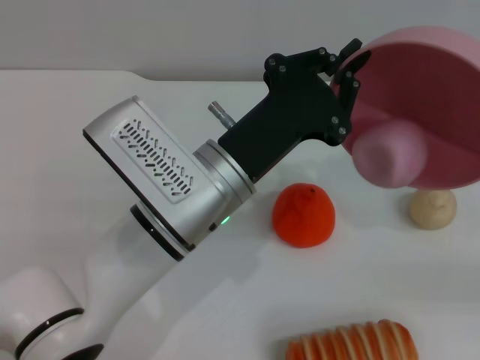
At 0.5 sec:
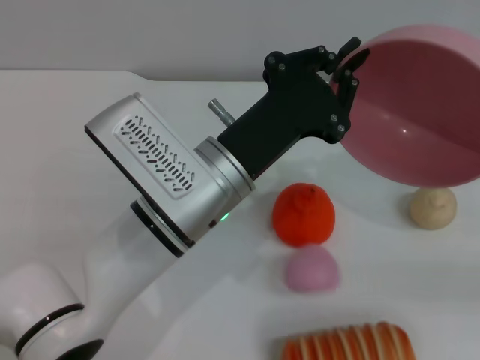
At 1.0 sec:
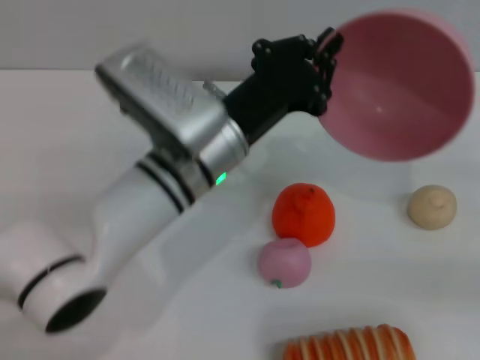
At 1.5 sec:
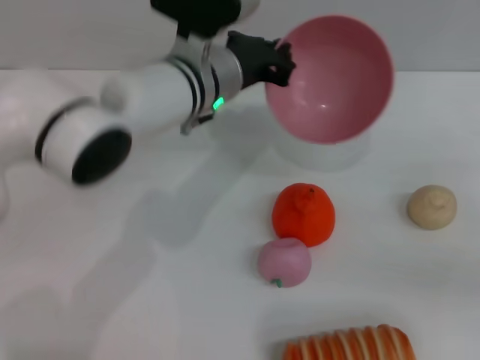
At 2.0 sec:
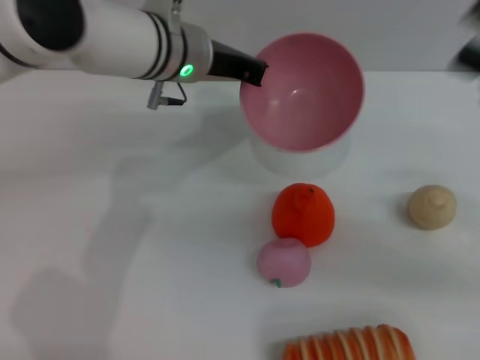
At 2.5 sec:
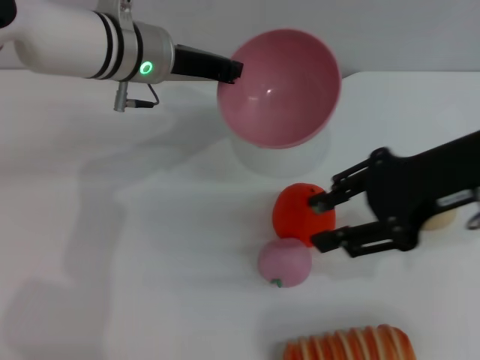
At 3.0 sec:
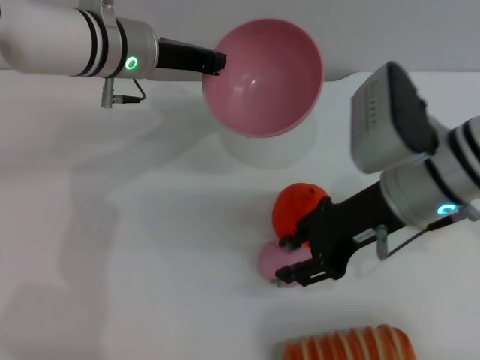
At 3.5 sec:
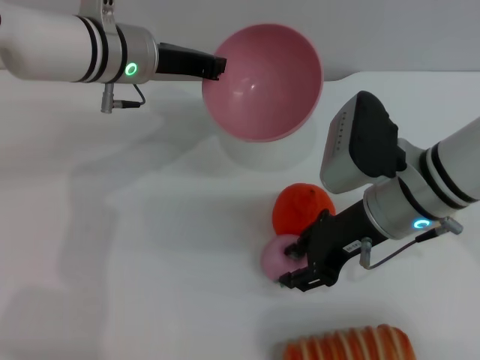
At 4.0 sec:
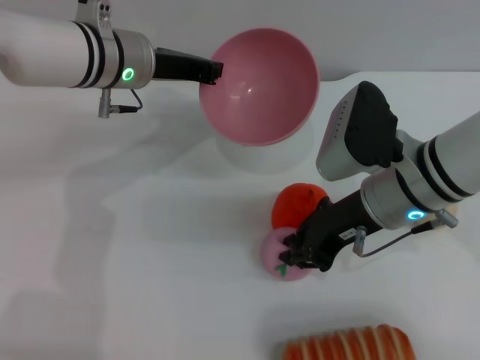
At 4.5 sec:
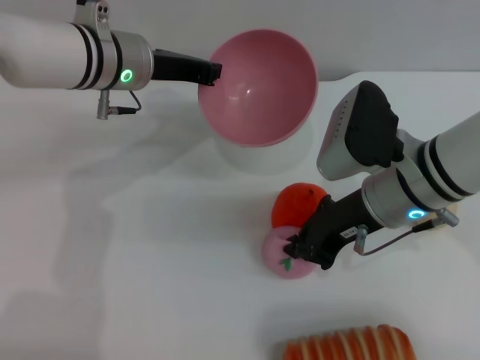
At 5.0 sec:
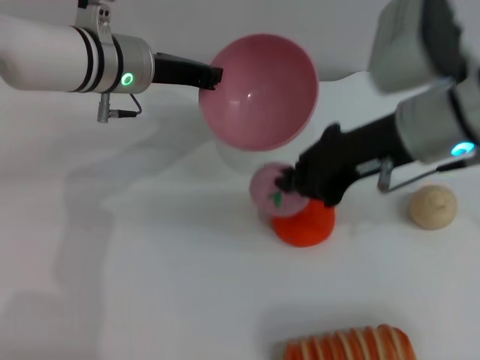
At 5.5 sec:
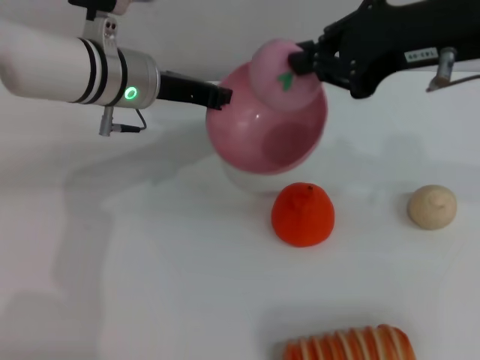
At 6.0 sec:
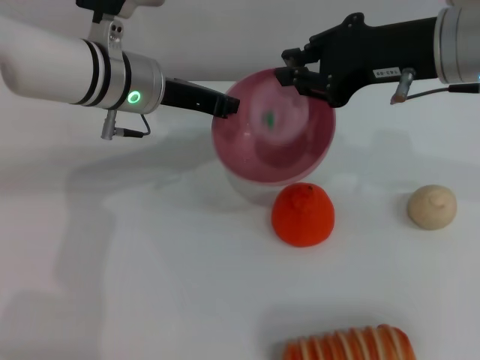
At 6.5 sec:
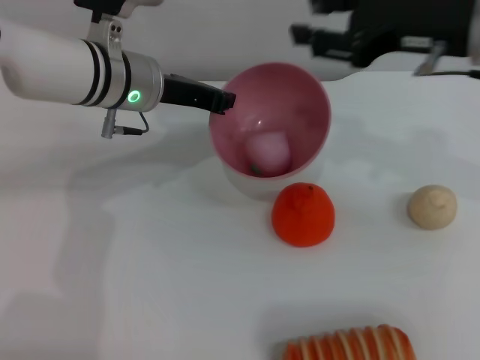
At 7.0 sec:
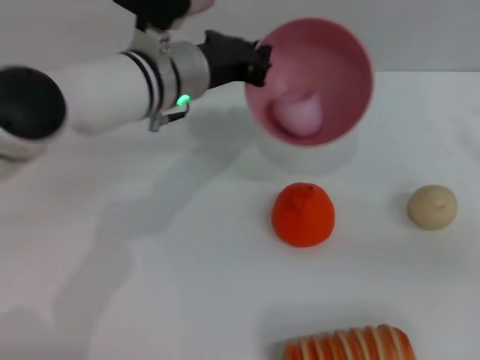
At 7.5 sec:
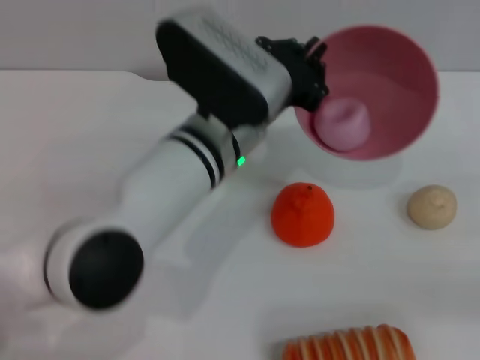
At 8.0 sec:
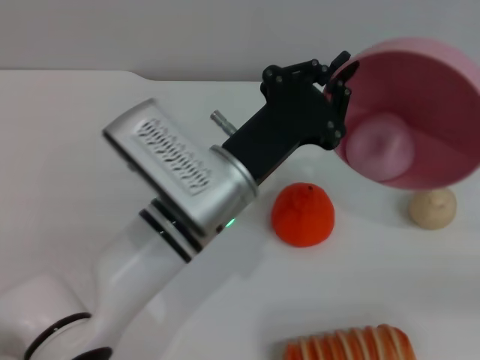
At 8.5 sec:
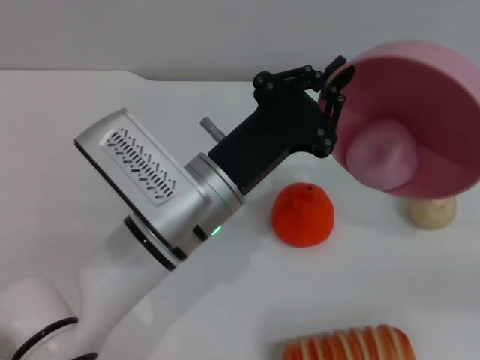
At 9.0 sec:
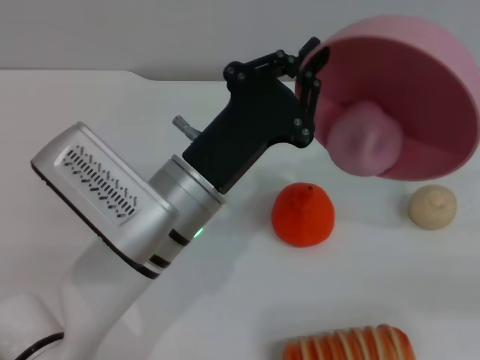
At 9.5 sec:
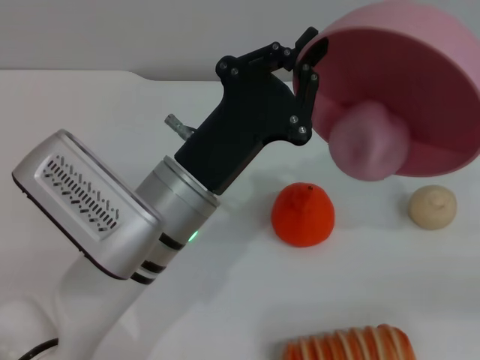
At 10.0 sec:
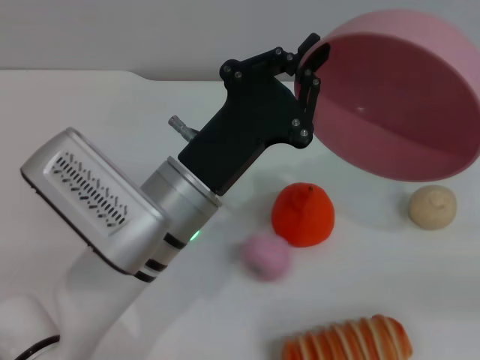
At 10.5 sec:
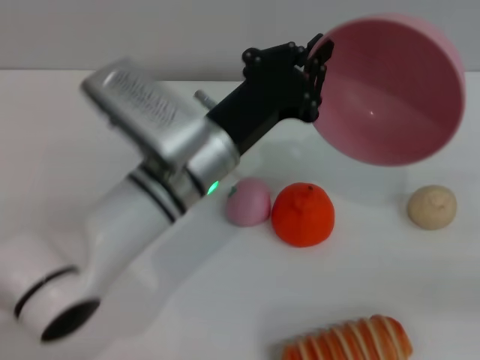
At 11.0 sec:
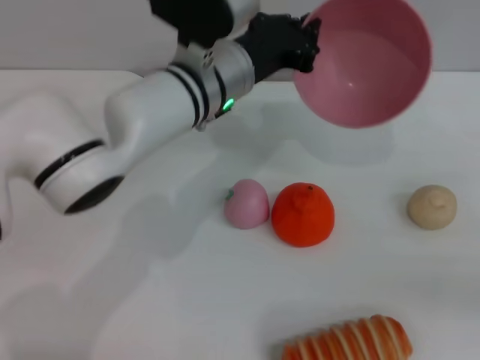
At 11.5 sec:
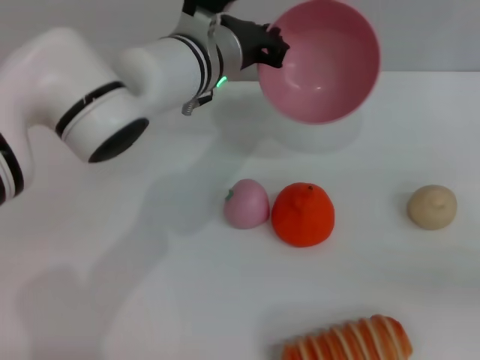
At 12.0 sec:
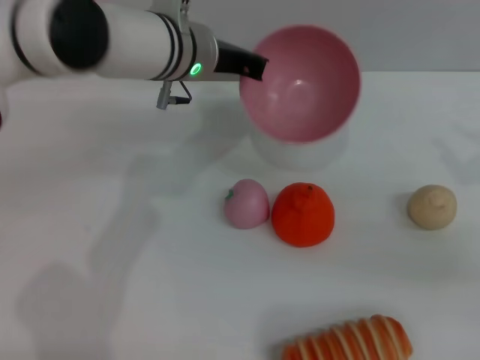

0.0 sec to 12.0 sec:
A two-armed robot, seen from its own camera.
Task of the whole recording: put the peach into the pink bowl and pour it out repeatedly.
Step, 1.0 sec to 5.0 sec: Pick up the peach with the right gripper.
Step, 5.5 sec to 6.0 sec: Place the peach into the bowl.
Step, 6.5 sec to 10.0 sec: Pour the peach out of bowl.
0.0 sec to 2.0 sec: The right gripper is displaced to the left and upward by roughly 15 cm, while the left gripper moves forward, some 15 cm.
2.0 sec to 4.0 sec: The left gripper is displaced to the left by roughly 5 cm. The right gripper shifts approximately 20 cm to the left and downward.
4.0 sec to 6.0 sec: The right gripper heads upward, covering some 10 cm, and closes its fingers.
6.0 sec to 8.0 sec: The left gripper travels backward and to the right by approximately 15 cm, while the right gripper shifts approximately 25 cm to the right and backward, and opens its fingers.
10.0 sec to 12.0 sec: The left gripper travels forward by roughly 15 cm, while the right gripper is displaced to the left by some 5 cm.

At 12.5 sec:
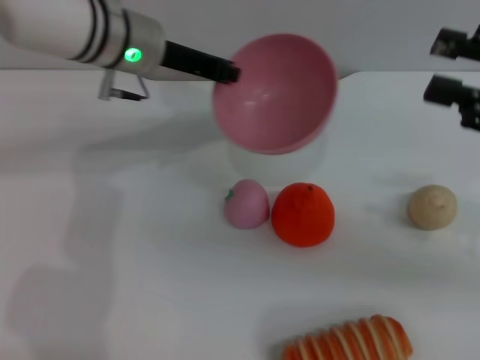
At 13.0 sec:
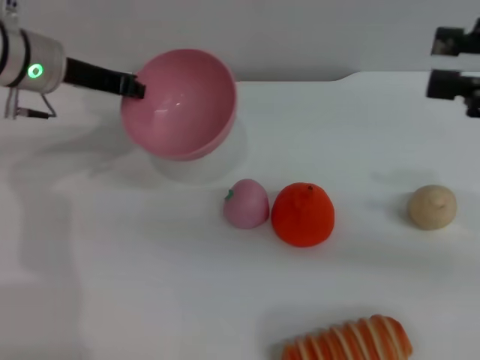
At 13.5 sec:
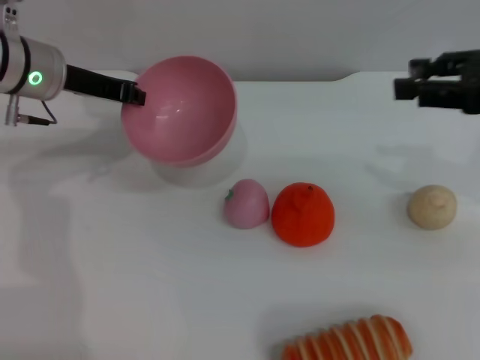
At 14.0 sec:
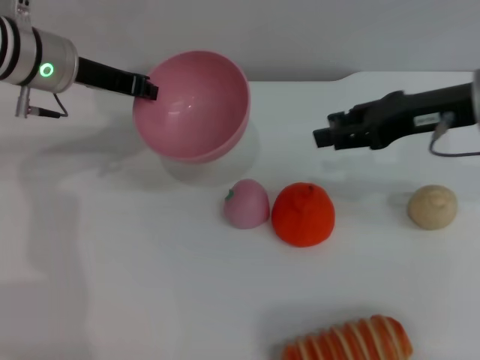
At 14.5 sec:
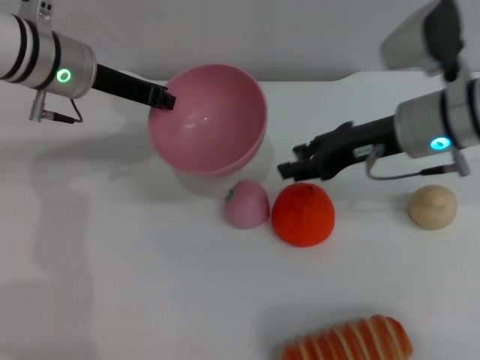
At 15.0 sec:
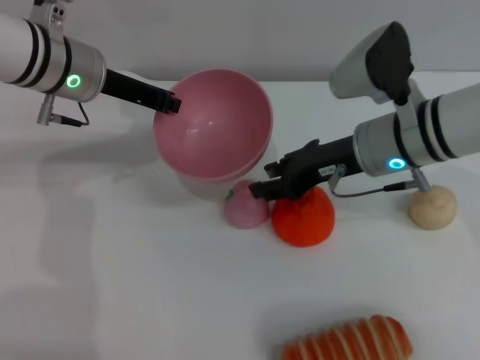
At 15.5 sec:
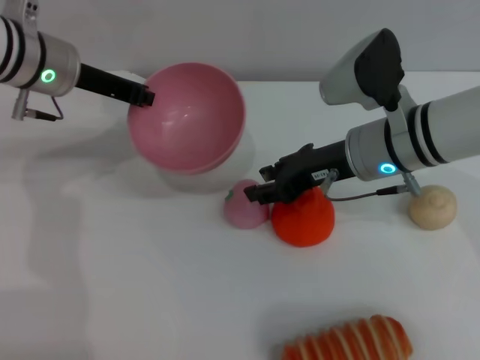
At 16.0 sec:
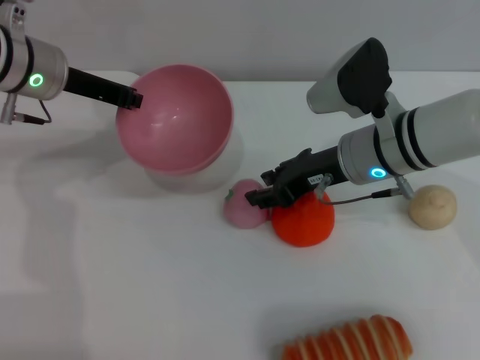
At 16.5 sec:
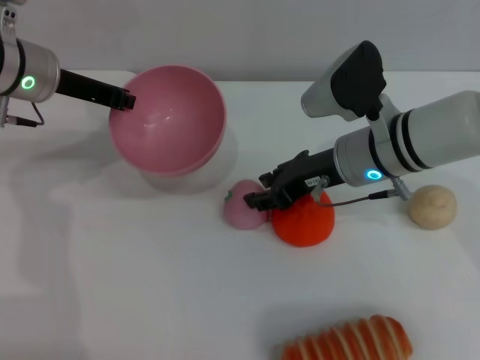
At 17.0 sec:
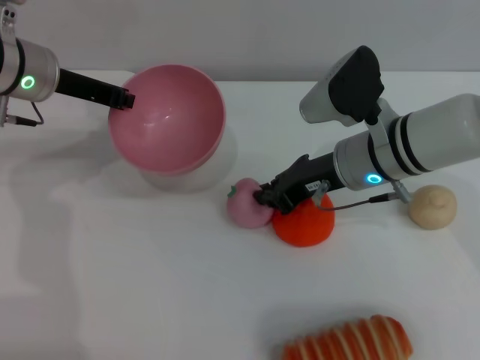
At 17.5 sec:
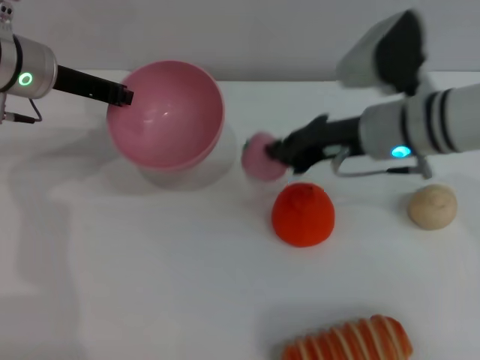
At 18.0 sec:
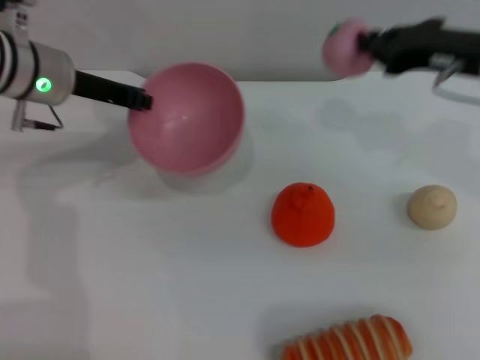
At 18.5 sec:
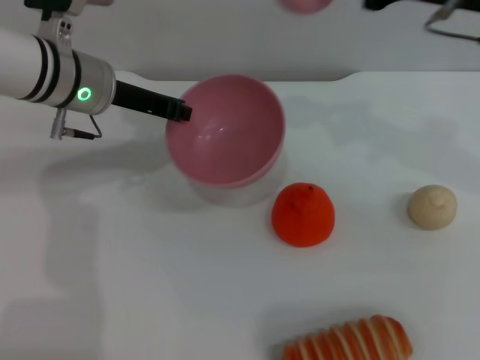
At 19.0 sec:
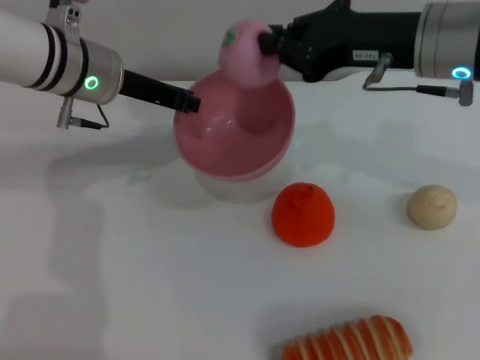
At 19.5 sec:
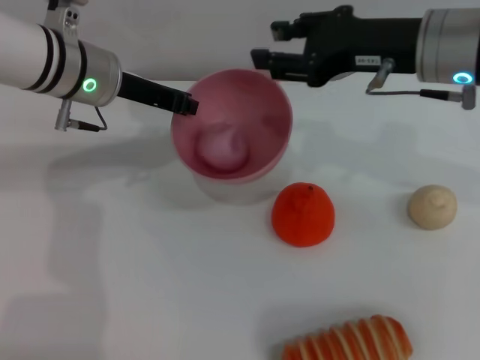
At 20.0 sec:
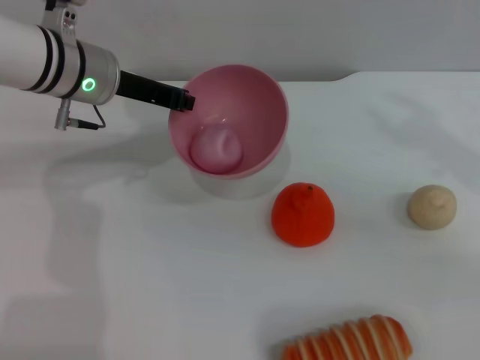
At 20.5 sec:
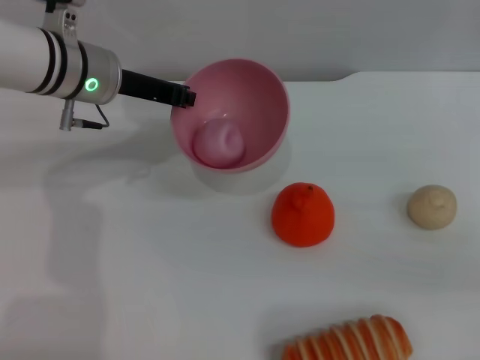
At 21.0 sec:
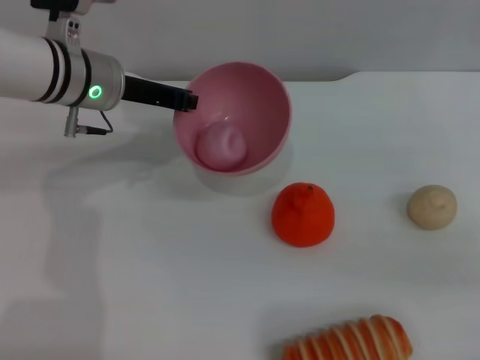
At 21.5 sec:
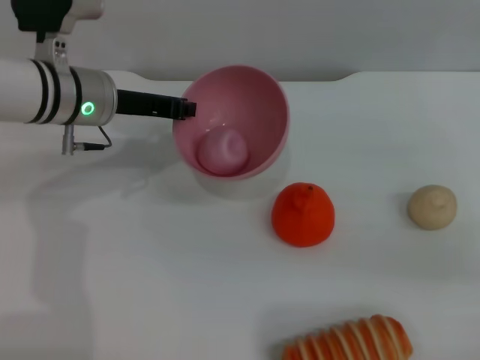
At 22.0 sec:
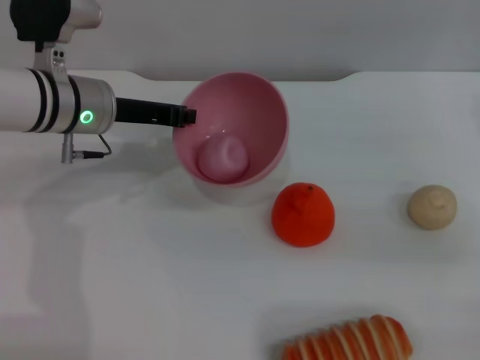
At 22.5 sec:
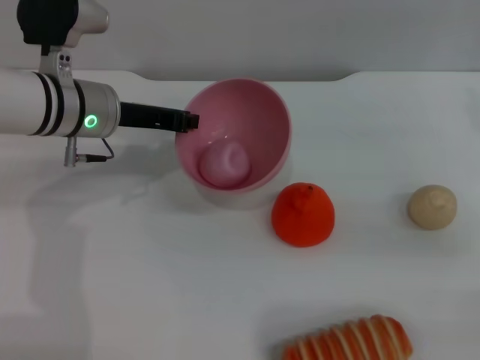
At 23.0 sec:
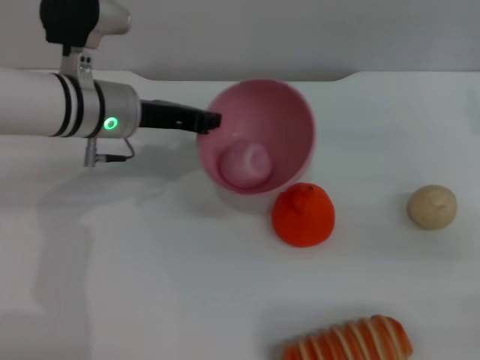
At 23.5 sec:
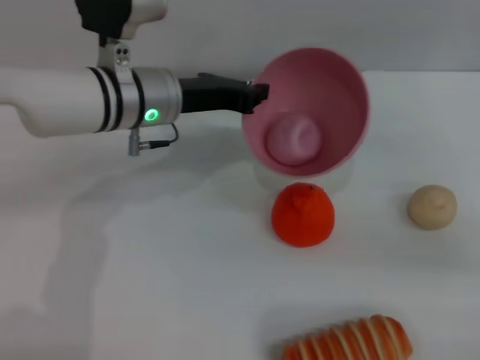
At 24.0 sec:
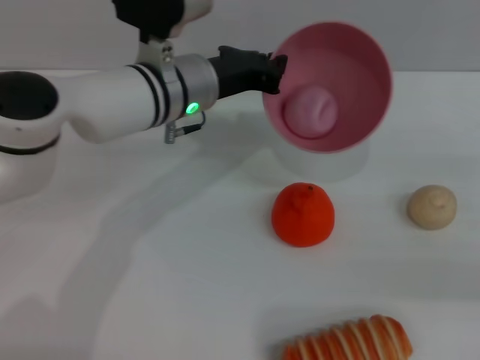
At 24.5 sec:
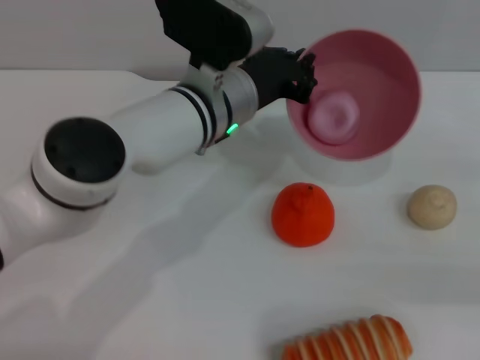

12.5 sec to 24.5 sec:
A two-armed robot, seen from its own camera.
Task of the whole recording: put the peach into the pink bowl and pour it out repeatedly.
Step, 12.5 sec to 17.5 sec: Pick up the peach with the right gripper.
Step, 18.0 sec to 19.0 sec: Place the peach into the bowl.
12.5 sec to 14.5 sec: The left gripper shifts some 5 cm to the left, while the right gripper goes approximately 20 cm to the left, forward and downward.
14.5 sec to 16.5 sec: The right gripper heads to the left, covering about 5 cm.
16.5 sec to 18.5 sec: The left gripper heads to the right, covering approximately 5 cm. The right gripper moves upward and to the right, approximately 20 cm, and closes up.
18.5 sec to 20.5 sec: The right gripper moves to the right, downward and backward, about 20 cm, and opens up.
20.5 sec to 22.5 sec: The grippers make only small movements.
22.5 sec to 24.5 sec: The left gripper is displaced to the right by approximately 15 cm; the right gripper moves to the right and backward, some 10 cm.

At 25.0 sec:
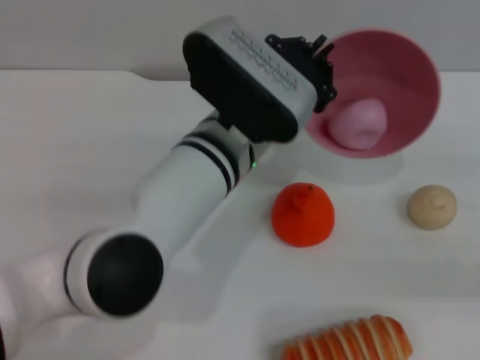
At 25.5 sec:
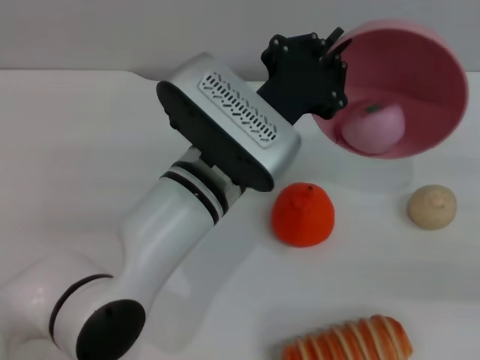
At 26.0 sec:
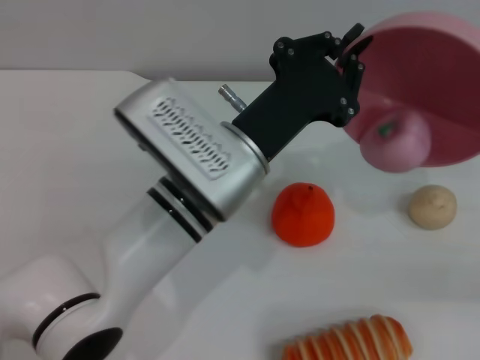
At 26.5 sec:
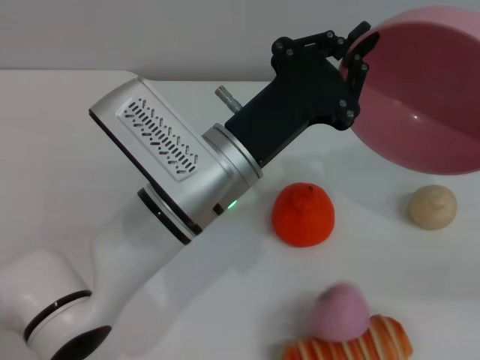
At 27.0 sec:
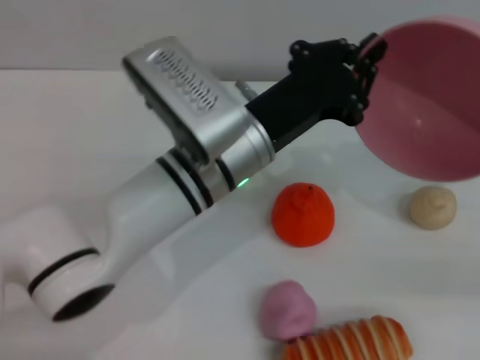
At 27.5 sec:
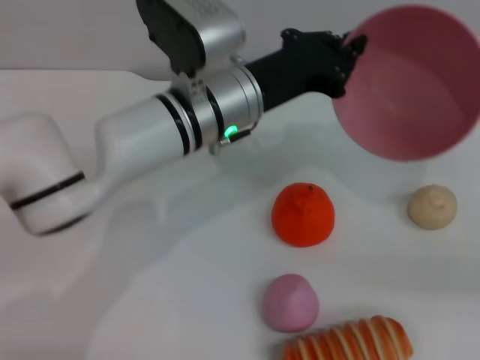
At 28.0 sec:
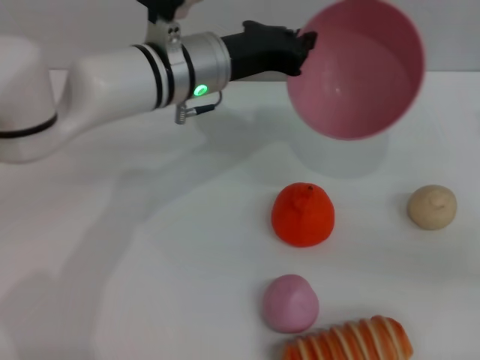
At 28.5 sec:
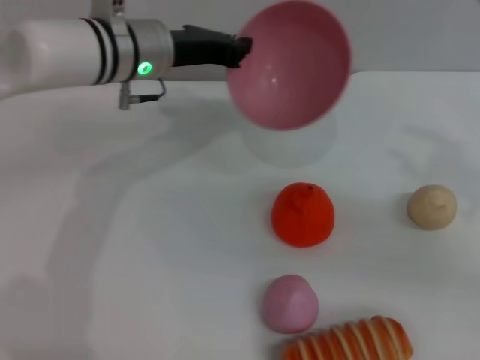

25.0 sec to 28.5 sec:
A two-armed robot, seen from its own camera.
Task of the whole recording: put the peach into the pink bowl and pour it out repeatedly.
27.0 sec to 28.5 sec: The left gripper is displaced forward and to the left by about 15 cm, while the right gripper shifts approximately 5 cm to the left.
